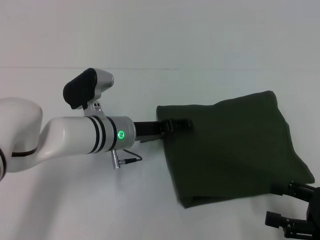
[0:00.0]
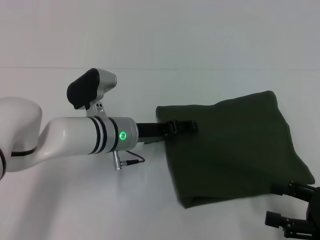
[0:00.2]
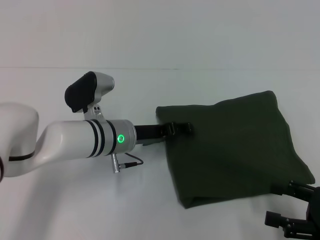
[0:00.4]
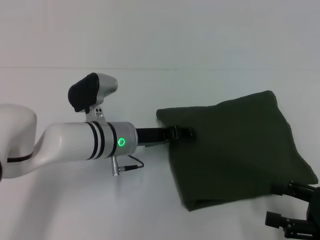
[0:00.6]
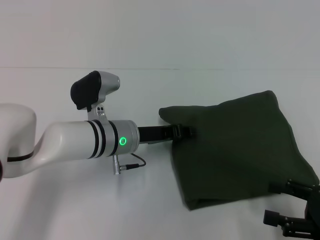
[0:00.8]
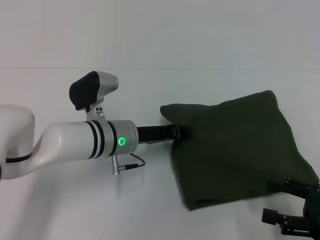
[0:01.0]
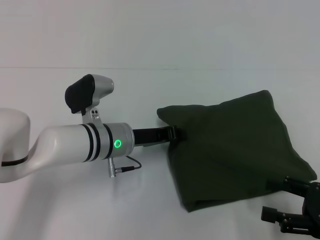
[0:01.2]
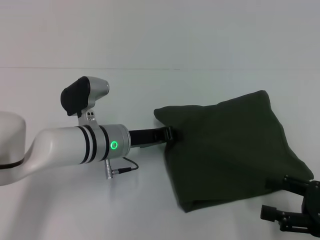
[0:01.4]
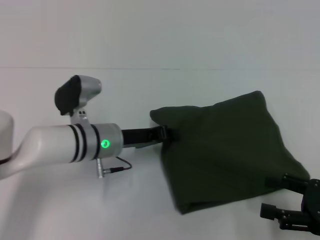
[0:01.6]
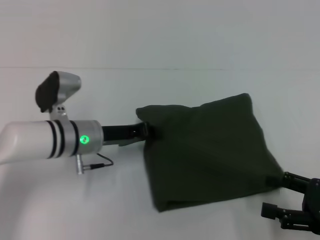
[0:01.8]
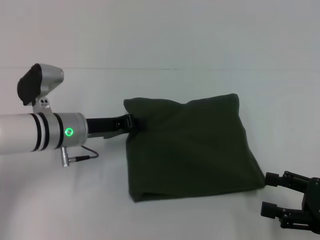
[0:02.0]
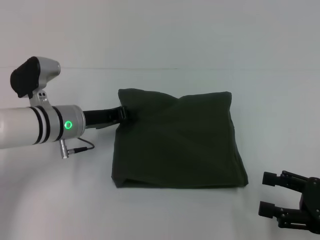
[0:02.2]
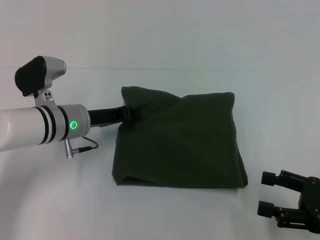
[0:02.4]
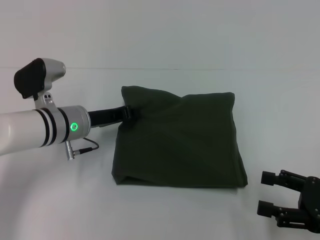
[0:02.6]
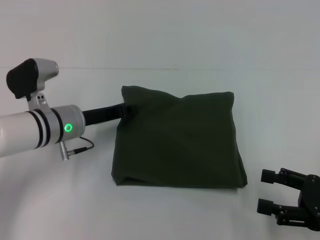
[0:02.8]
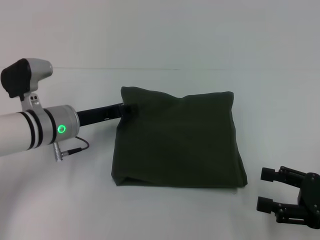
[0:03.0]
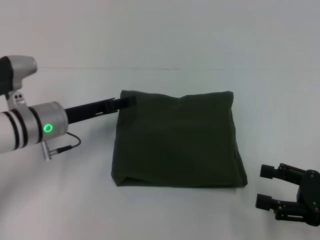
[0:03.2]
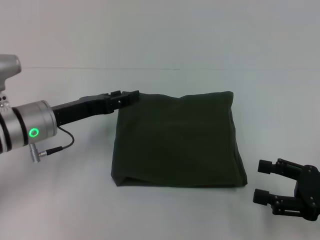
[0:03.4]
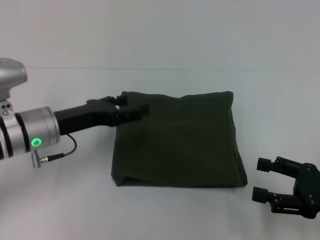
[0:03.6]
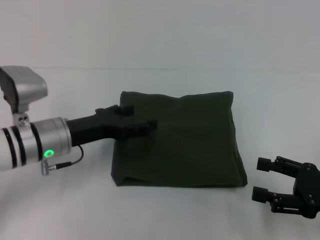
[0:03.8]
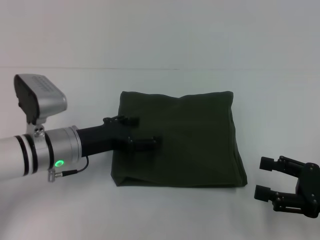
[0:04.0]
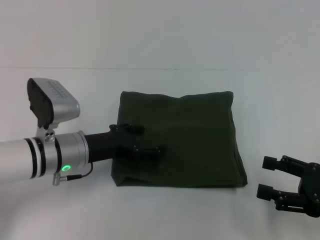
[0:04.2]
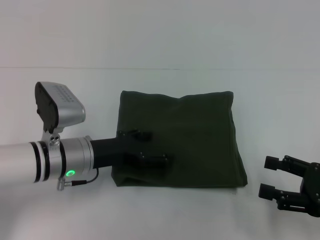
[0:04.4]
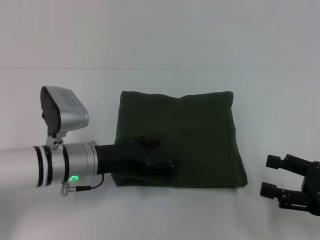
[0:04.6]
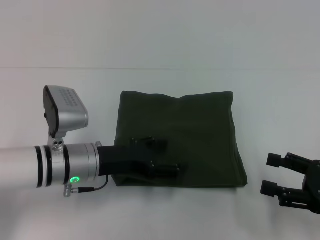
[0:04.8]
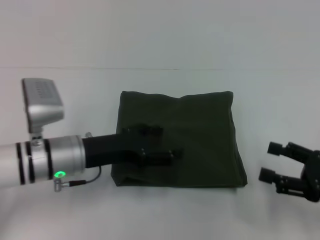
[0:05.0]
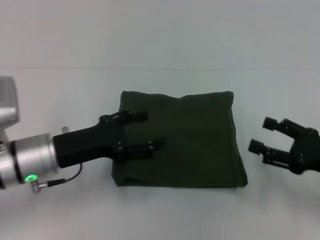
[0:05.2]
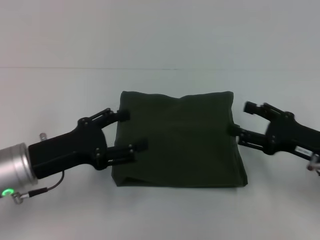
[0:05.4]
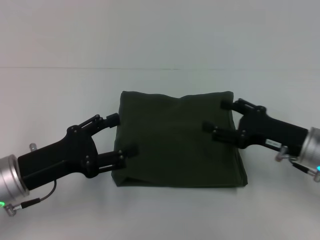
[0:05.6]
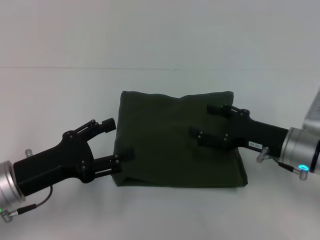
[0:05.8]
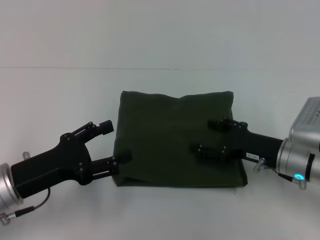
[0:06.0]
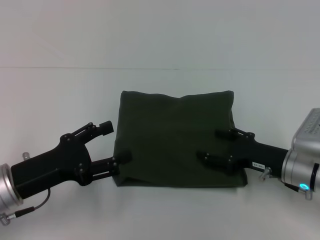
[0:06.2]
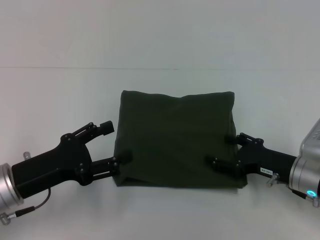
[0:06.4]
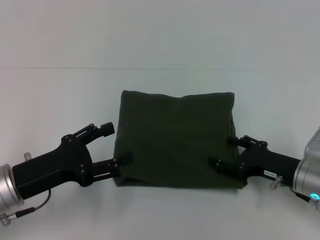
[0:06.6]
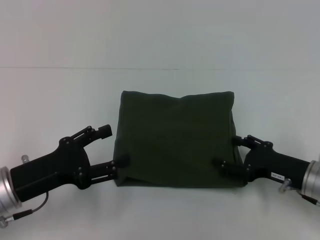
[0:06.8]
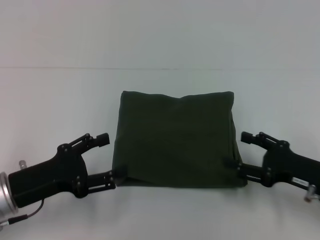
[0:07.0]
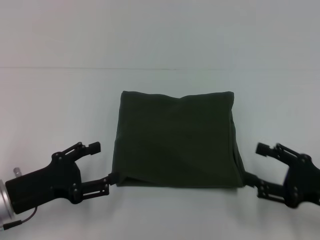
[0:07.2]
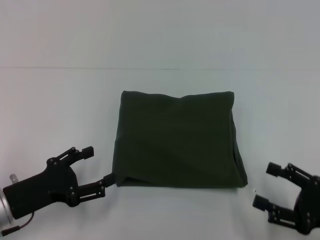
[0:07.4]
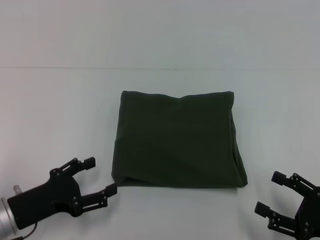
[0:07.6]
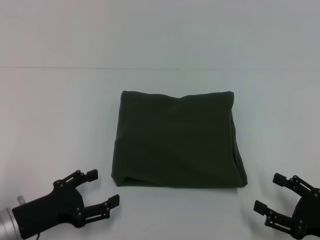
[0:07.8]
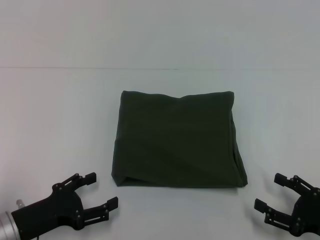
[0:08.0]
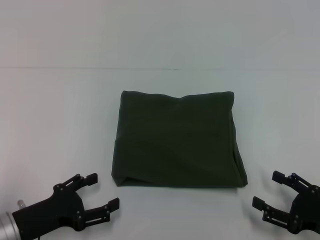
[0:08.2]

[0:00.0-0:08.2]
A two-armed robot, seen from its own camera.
0:00.0 to 0:01.6: The left gripper closes its fingers.
0:01.6 to 0:03.2: The left gripper goes some 10 cm to the left, and opens up.
0:03.2 to 0:05.0: The left gripper is displaced backward by approximately 5 cm, and opens its fingers.
0:05.0 to 0:06.6: The right gripper heads to the left, forward and downward, covering roughly 10 cm; the left gripper heads to the left and backward, covering roughly 10 cm.
0:06.6 to 0:08.2: The right gripper is displaced backward and to the right by about 10 cm; the left gripper goes roughly 5 cm downward.
